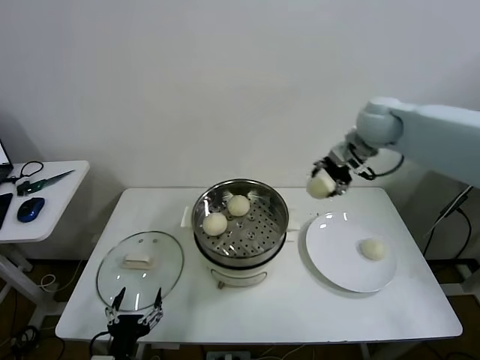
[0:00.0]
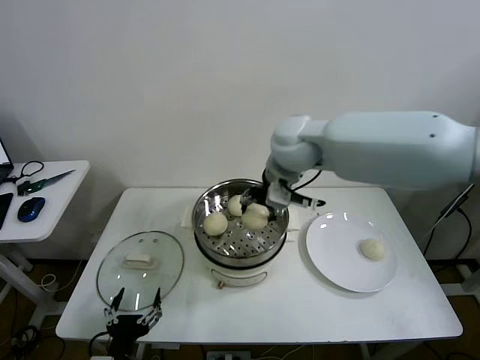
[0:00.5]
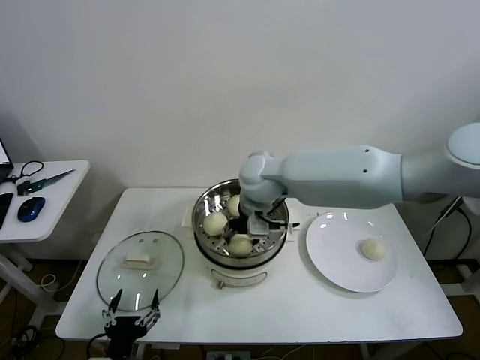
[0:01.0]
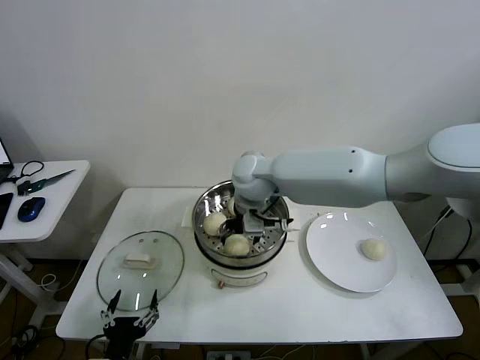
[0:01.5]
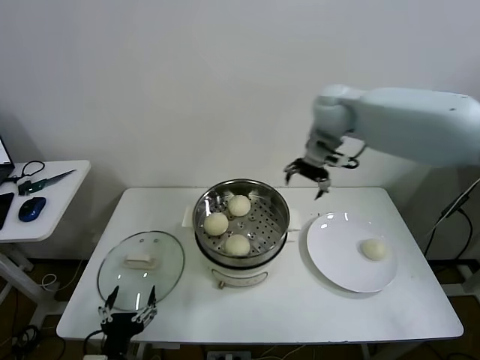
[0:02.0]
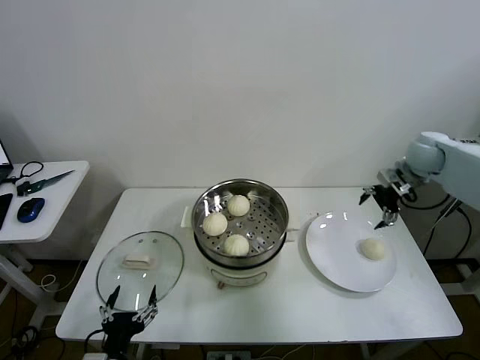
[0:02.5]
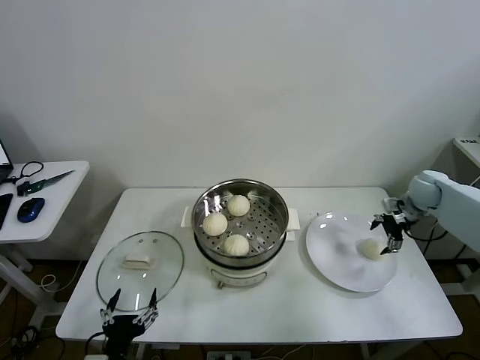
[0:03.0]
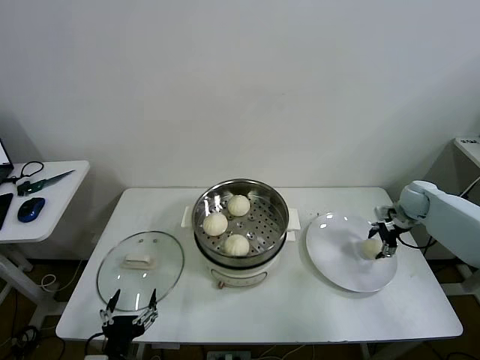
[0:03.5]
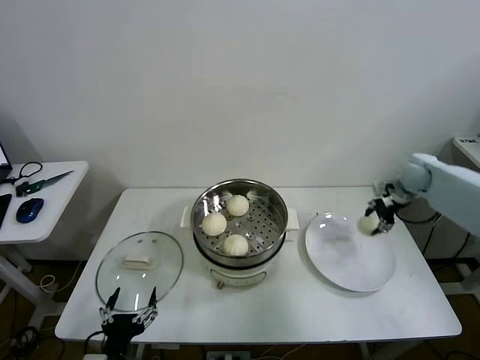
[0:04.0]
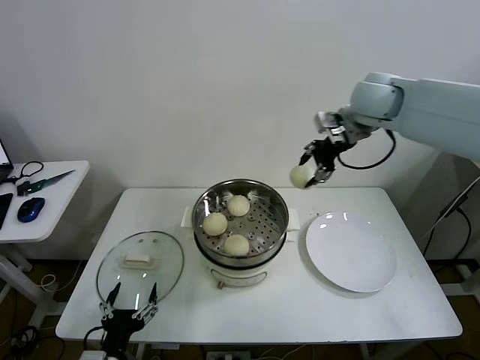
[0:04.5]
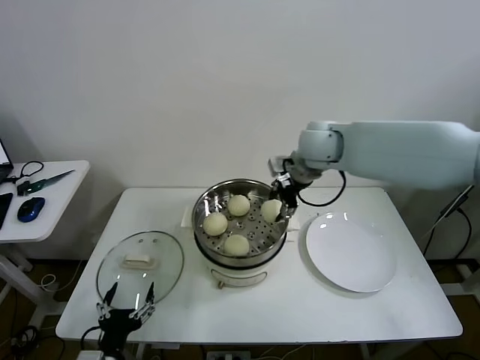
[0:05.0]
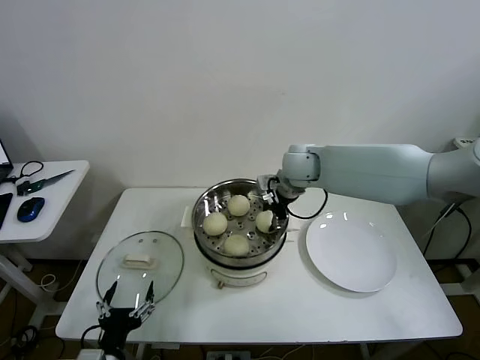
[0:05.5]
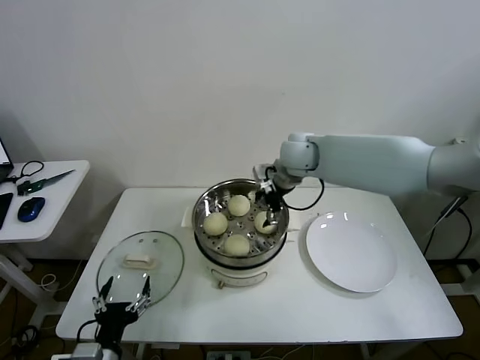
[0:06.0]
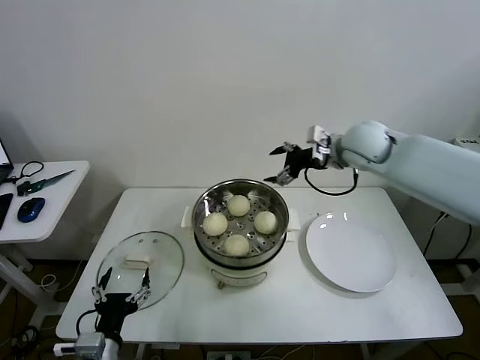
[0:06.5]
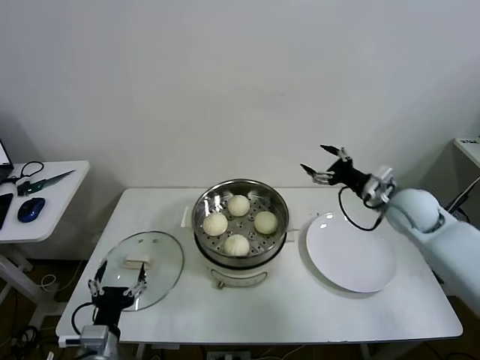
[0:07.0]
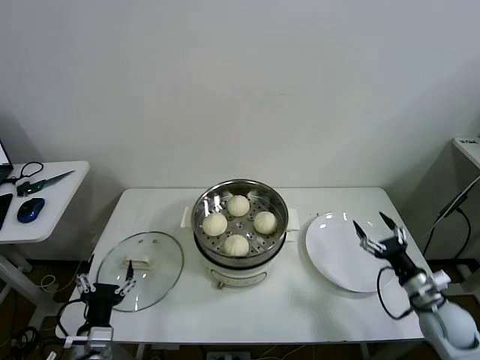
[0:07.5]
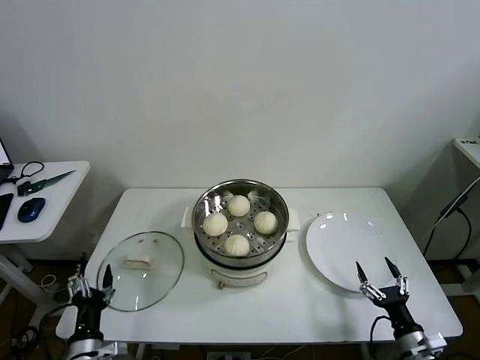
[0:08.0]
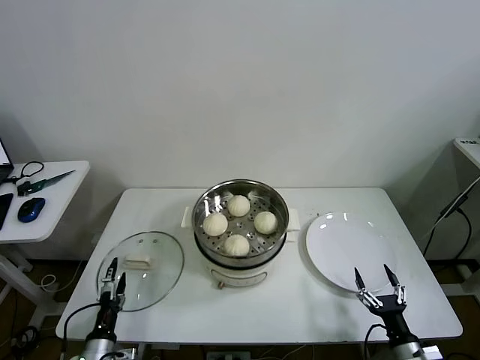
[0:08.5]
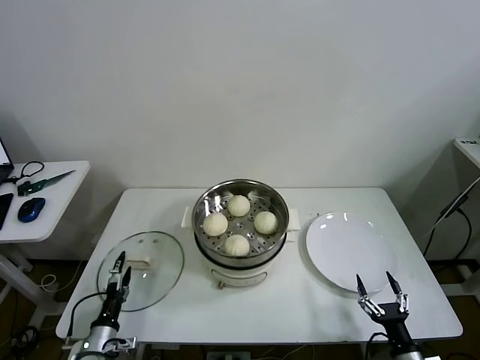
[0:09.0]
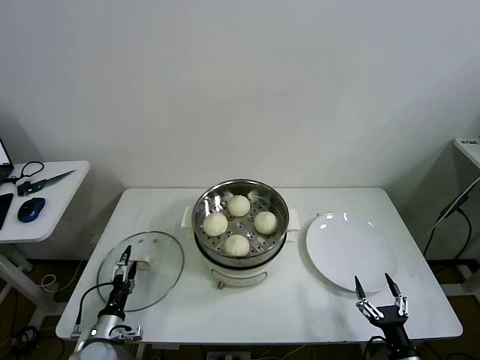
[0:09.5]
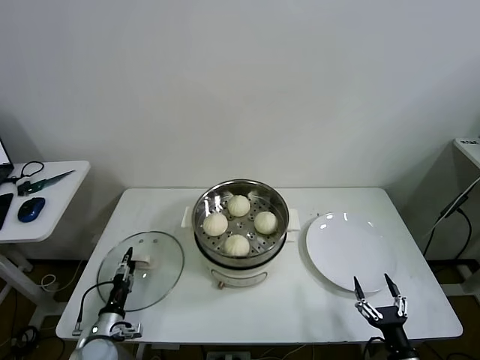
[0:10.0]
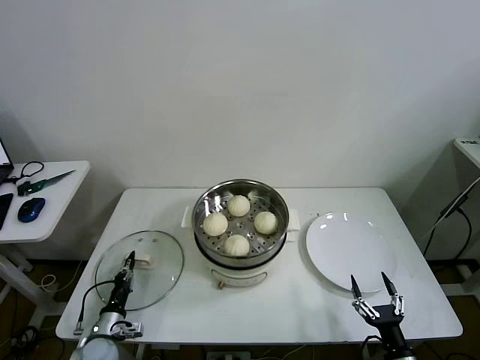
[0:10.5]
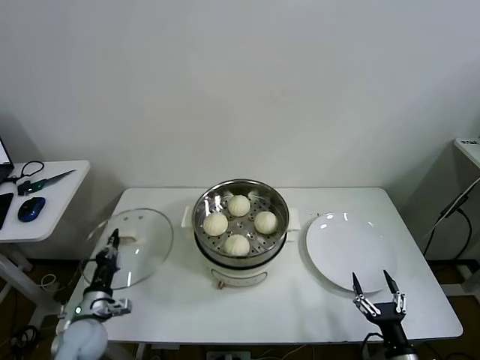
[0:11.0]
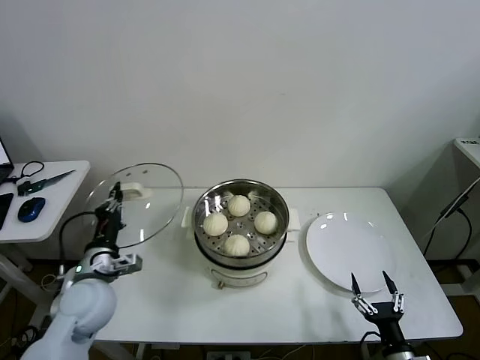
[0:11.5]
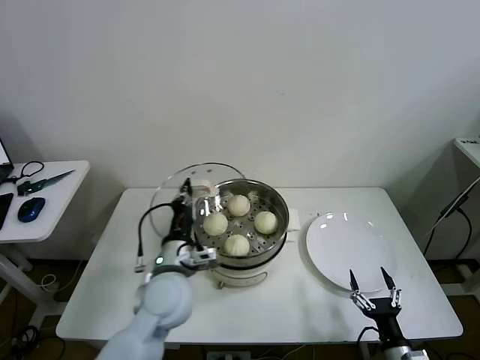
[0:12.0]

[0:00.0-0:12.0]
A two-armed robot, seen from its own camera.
Task of the whole recording: take steamed baozi put them in steamer then cover it.
Step, 0:00.0 to 0:01.5: Place the baozi on the steamer with right gripper.
Step, 0:02.0 to 0:03.5: Grasp the baozi in the plate with right gripper.
Step, 0:04.0 to 0:06.0: Place the baozi on the steamer with right gripper.
Step, 0:06.5 to 0:10.0: Grasp the pot lid with left gripper.
0:00.0 to 0:02.0: The right gripper reaches approximately 25 cm to the left, then returns, and opens up.
0:02.0 to 0:04.0: The right gripper is displaced to the right and downward by approximately 30 cm, and closes up.
0:04.0 to 0:06.0: The right gripper shifts roughly 30 cm to the left, and opens its fingers.
0:06.0 to 0:08.0: The left gripper changes place by approximately 5 cm, while the right gripper travels backward, downward and to the right by some 60 cm.
0:08.0 to 0:10.0: The left gripper moves downward and forward, approximately 15 cm. The right gripper goes approximately 5 cm backward.
0:10.0 to 0:12.0: The left gripper travels upward and to the right by about 30 cm, and closes its fingers.

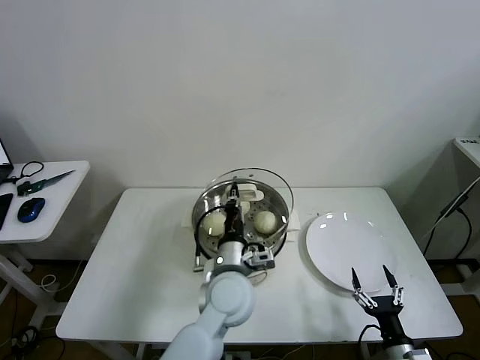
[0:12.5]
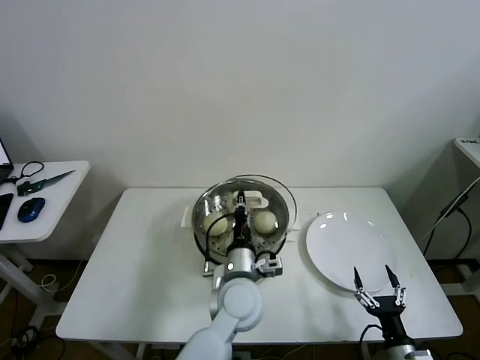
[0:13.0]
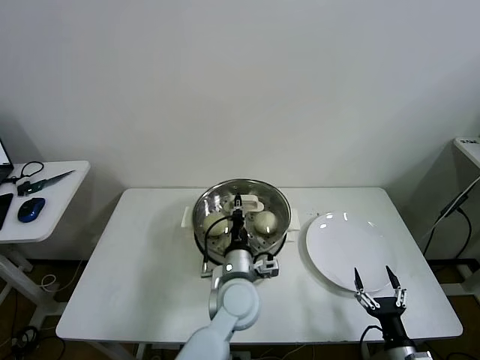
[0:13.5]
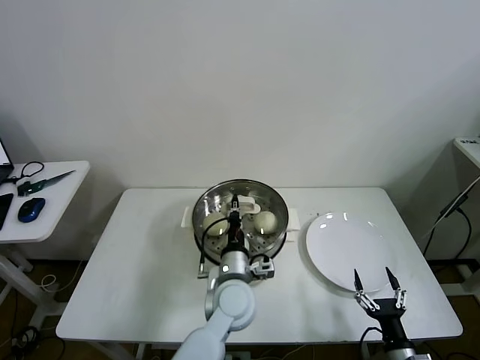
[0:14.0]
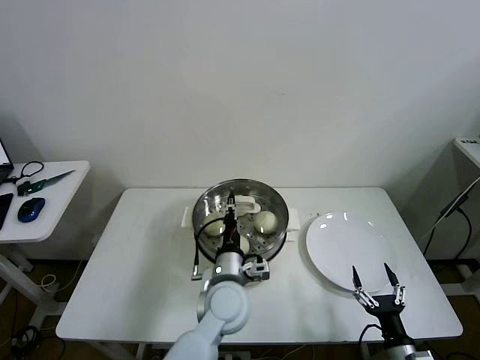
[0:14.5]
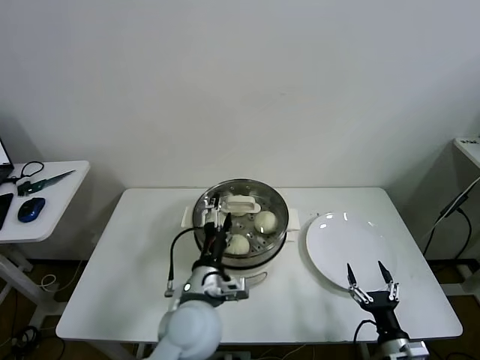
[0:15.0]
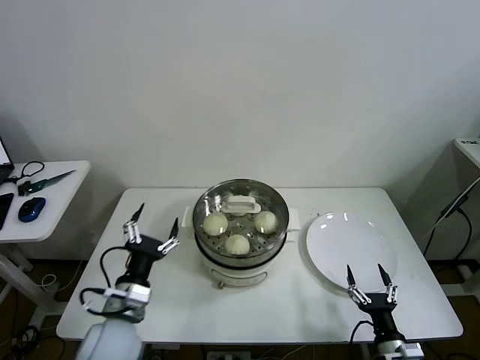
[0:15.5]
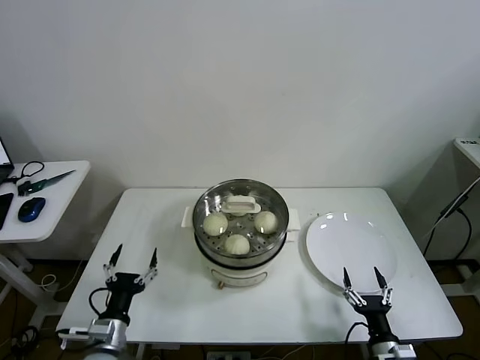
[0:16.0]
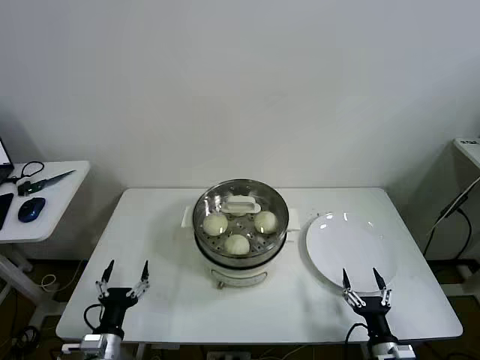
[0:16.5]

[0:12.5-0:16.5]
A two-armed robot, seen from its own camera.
Task of the whole recording: take steamed baozi put them in steamer then cover it.
Step, 0:12.5 to 0:14.5: Place the pot lid on the steamer with left gripper.
0:12.5 to 0:14.5: The grippers move only a little.
0:14.5 to 0:16.5: The left gripper shifts roughly 30 cm to the left and backward, and opens its fingers.
